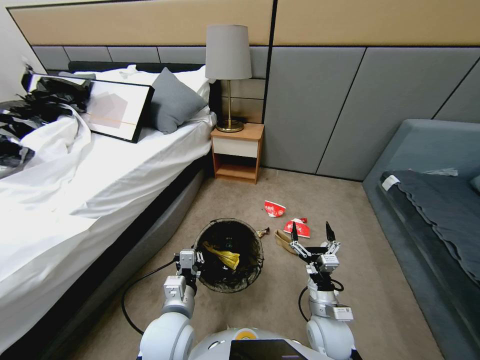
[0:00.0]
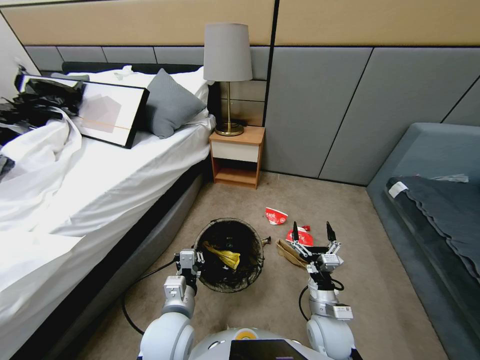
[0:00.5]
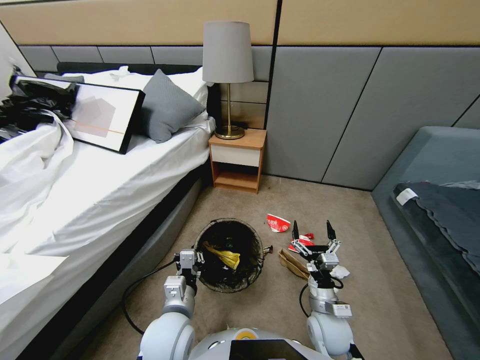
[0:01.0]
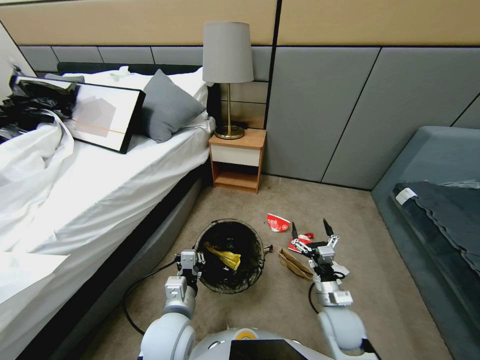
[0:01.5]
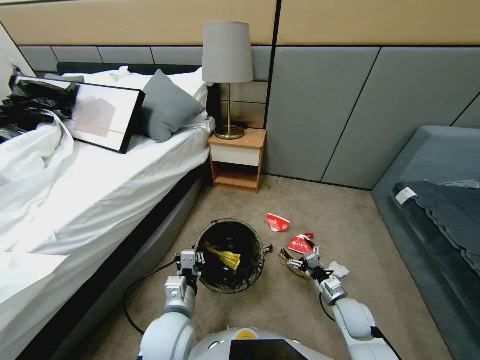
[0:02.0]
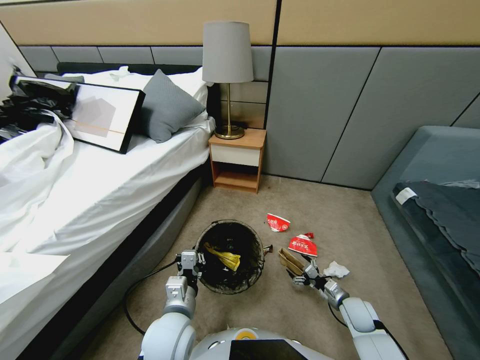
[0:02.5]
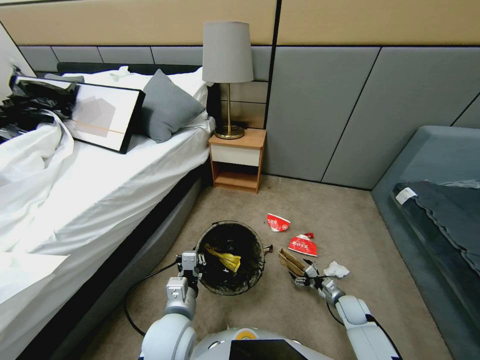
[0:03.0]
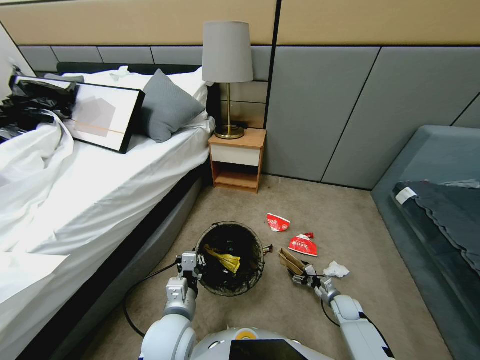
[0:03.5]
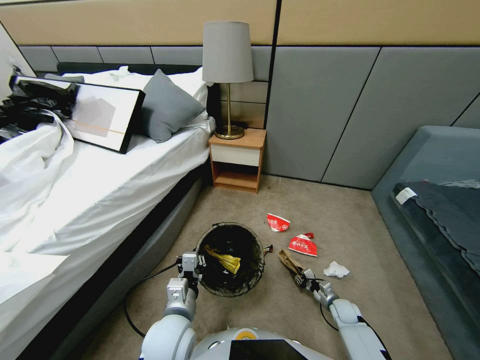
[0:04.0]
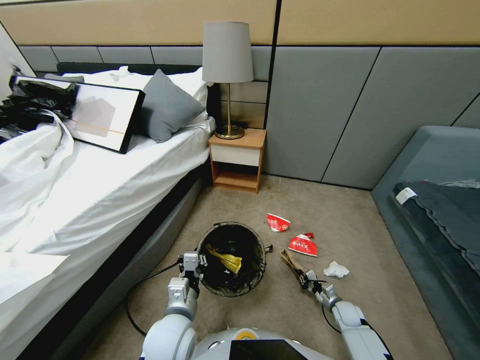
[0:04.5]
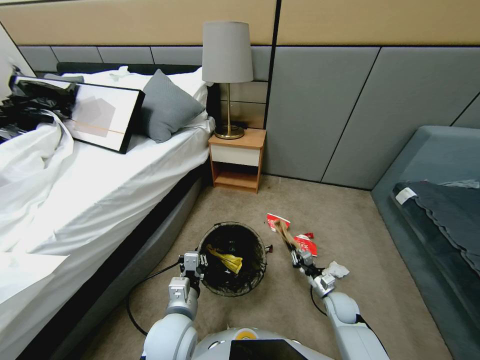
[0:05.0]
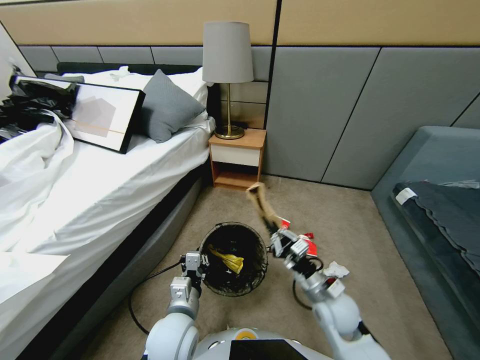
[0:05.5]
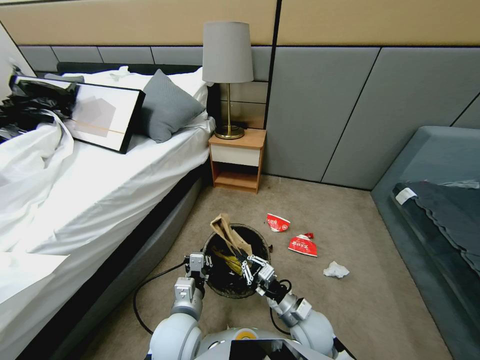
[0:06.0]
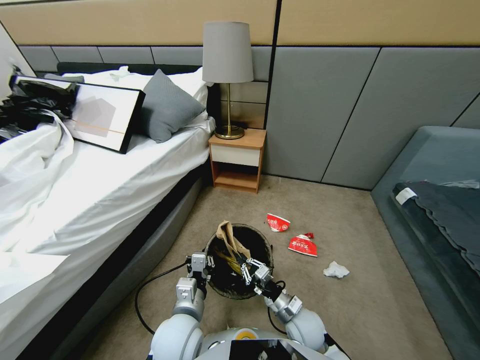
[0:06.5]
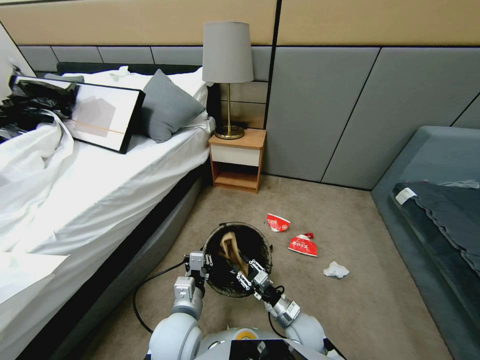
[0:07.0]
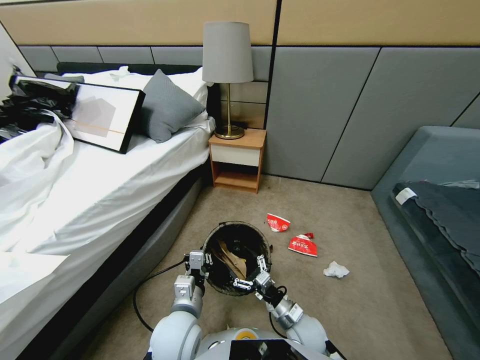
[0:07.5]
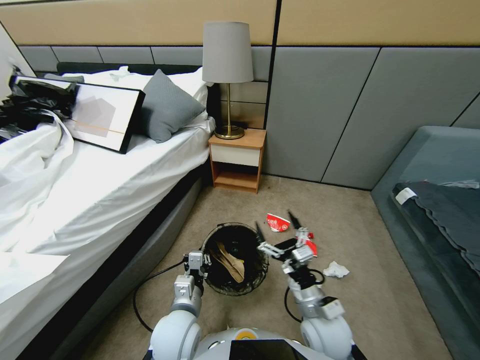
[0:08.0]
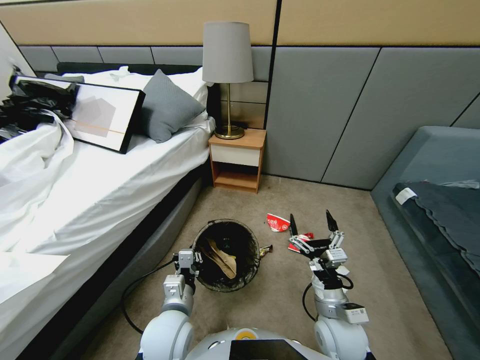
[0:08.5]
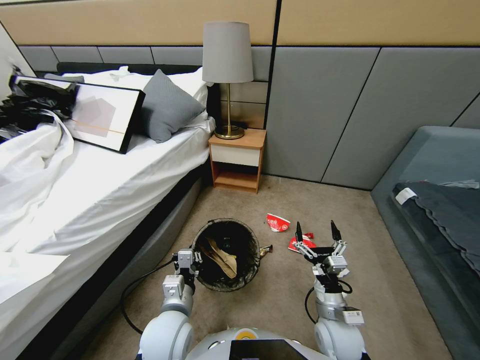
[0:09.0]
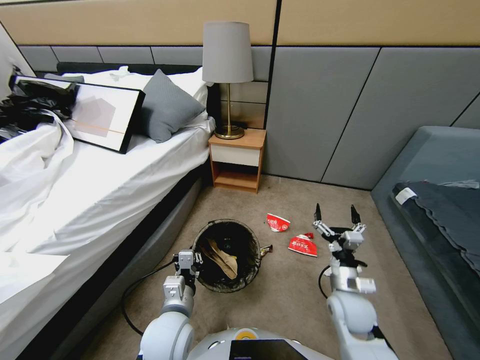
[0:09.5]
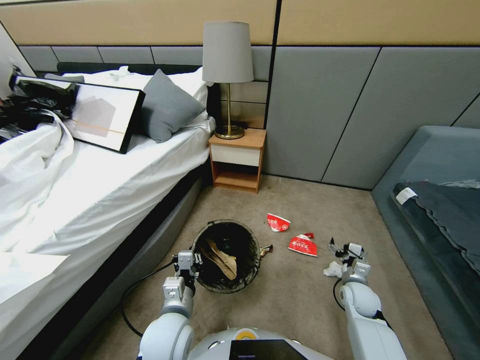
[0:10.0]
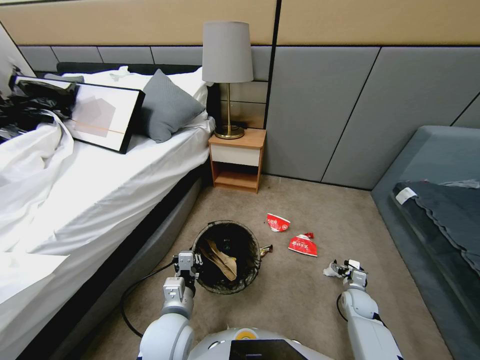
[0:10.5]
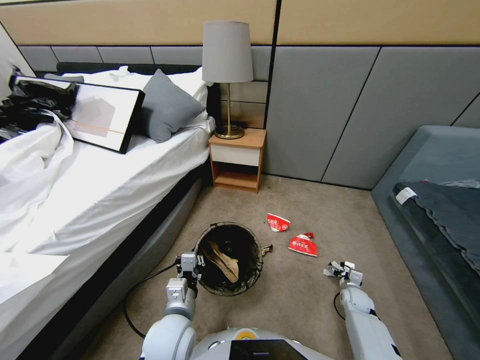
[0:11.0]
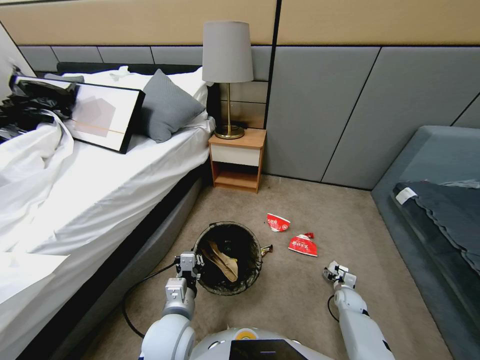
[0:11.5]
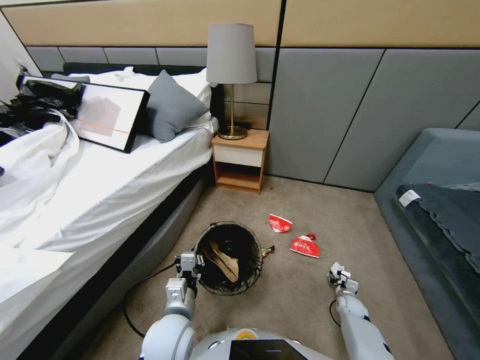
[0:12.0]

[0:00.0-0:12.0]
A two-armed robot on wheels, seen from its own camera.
Task of the whole recording: Pick up the trash bin, then pick up the garbage from the floor and place it into the trash bin.
0:00.0 to 0:02.0: The right gripper goes approximately 15 cm to the right and downward.
0:02.0 to 0:04.0: The right gripper goes approximately 15 cm downward and to the right, and closes.
0:04.0 to 0:06.0: The right gripper travels to the left and upward by about 30 cm.
0:06.0 to 0:08.0: The right gripper moves upward, approximately 10 cm, and opens up.
0:08.0 to 0:10.0: The right gripper moves to the right, downward and forward, approximately 25 cm.
0:10.0 to 0:12.0: The right gripper moves downward, about 15 cm, and closes.

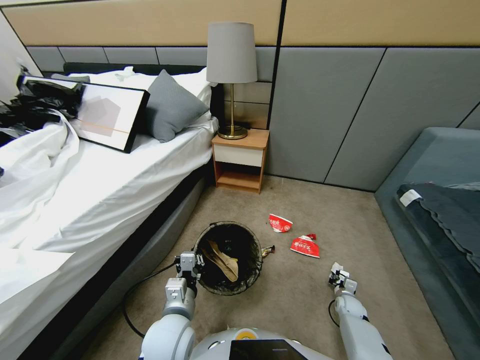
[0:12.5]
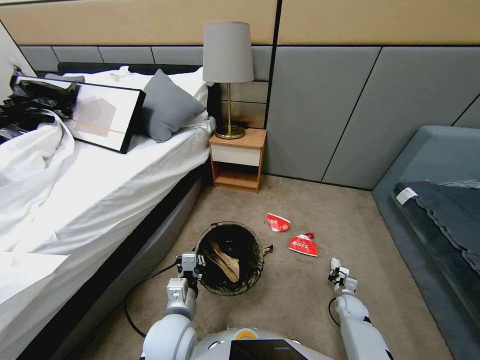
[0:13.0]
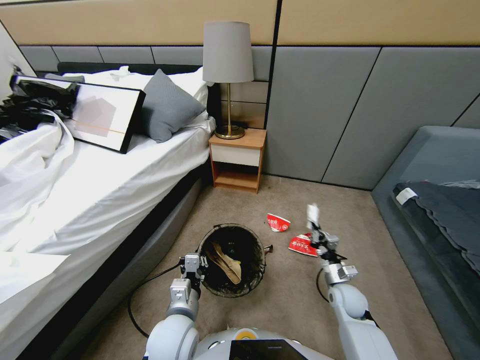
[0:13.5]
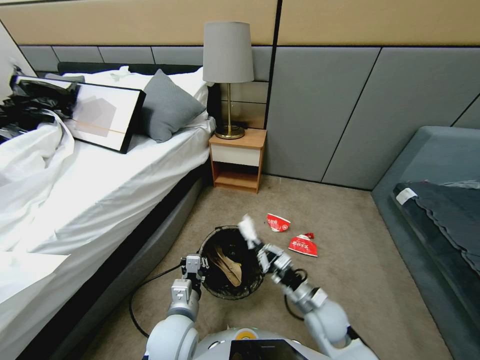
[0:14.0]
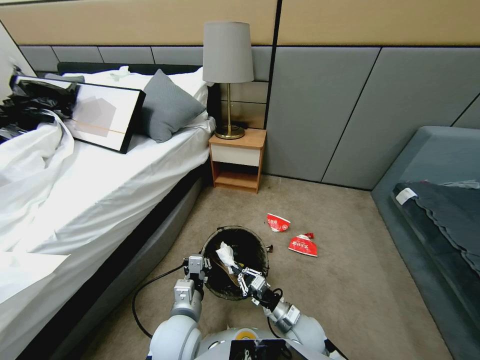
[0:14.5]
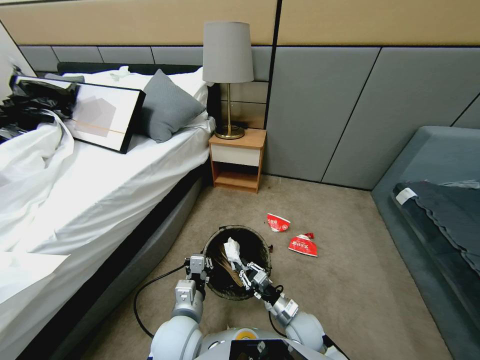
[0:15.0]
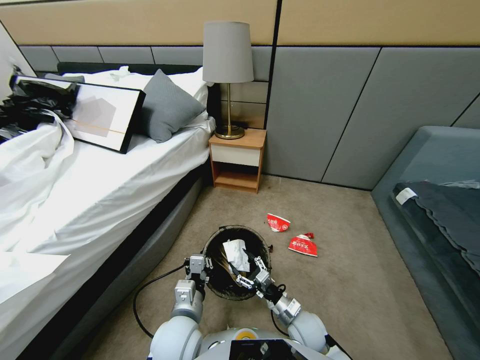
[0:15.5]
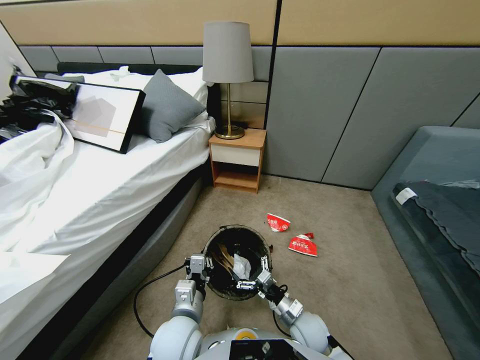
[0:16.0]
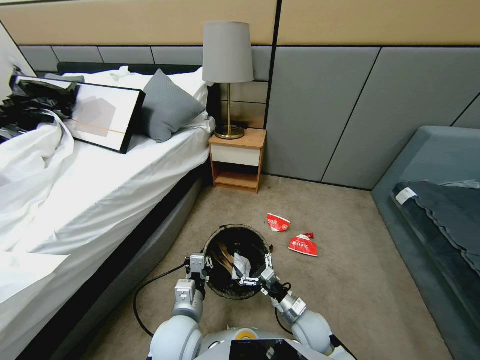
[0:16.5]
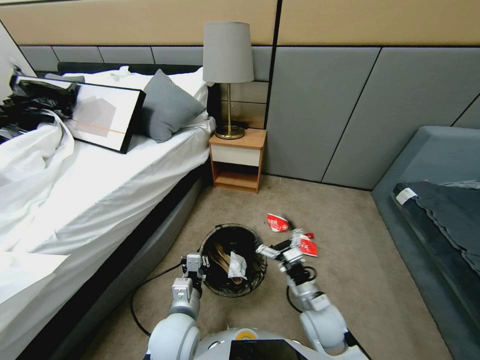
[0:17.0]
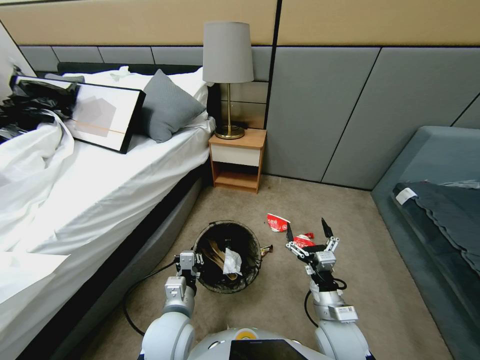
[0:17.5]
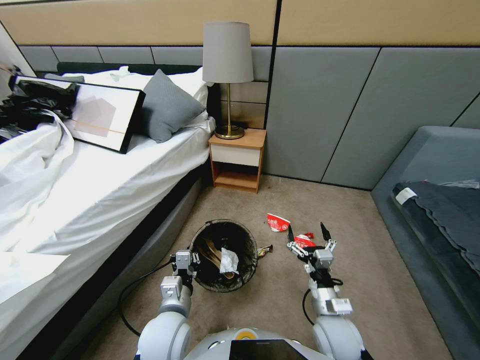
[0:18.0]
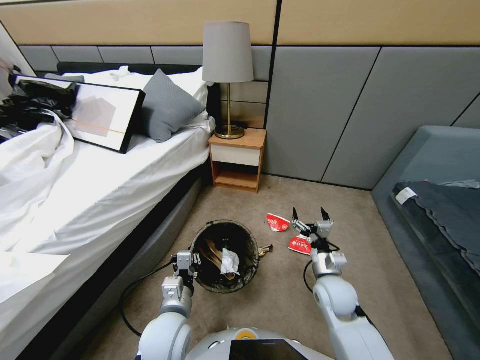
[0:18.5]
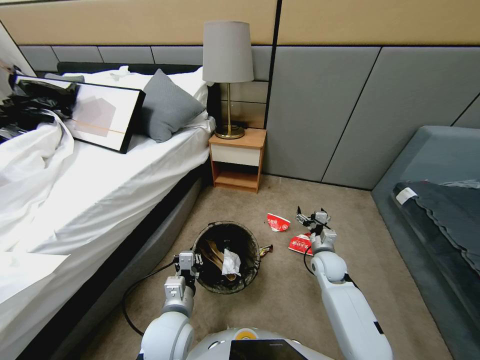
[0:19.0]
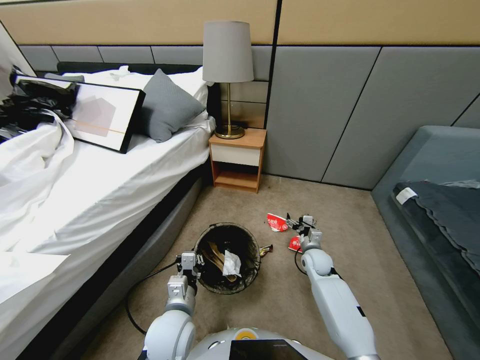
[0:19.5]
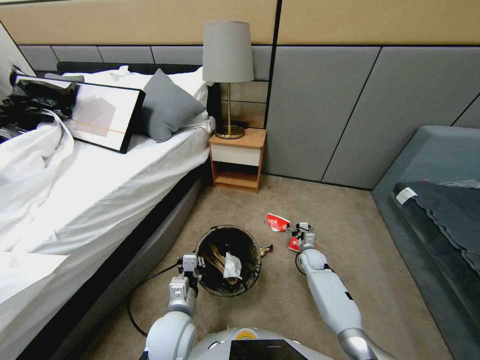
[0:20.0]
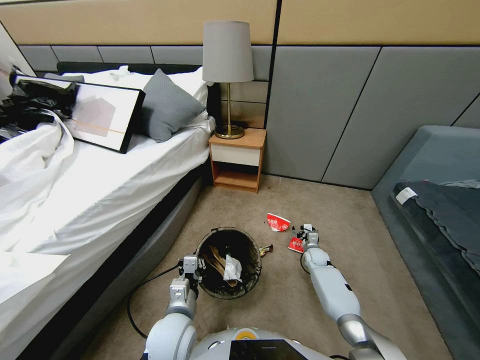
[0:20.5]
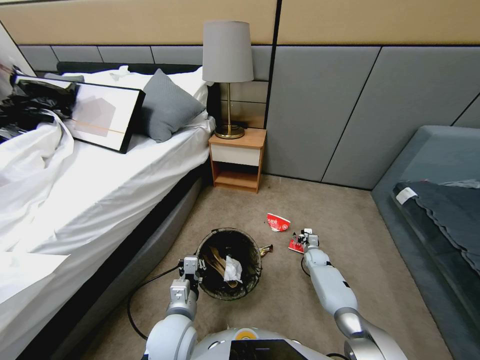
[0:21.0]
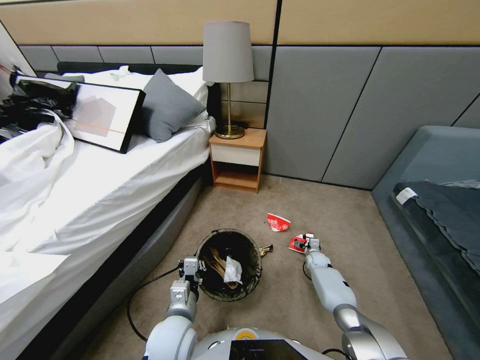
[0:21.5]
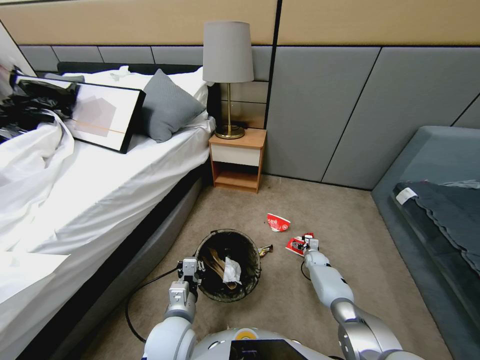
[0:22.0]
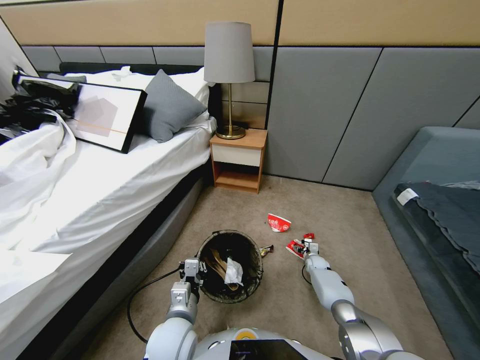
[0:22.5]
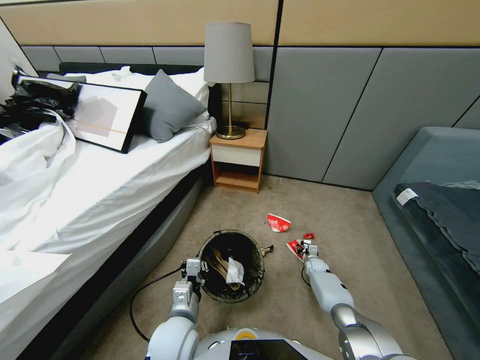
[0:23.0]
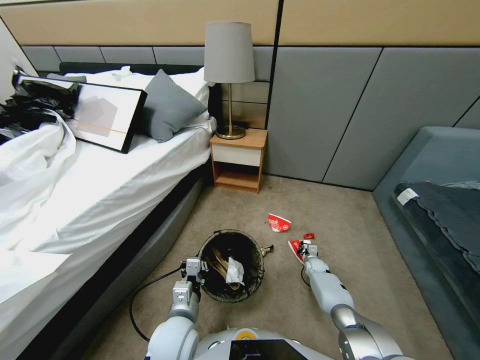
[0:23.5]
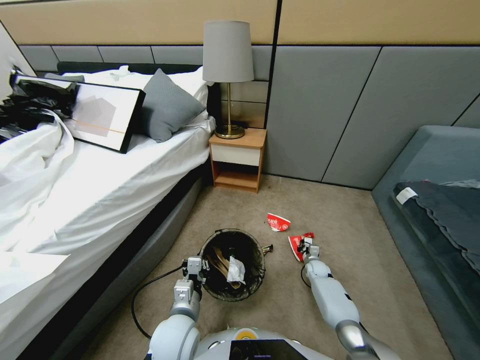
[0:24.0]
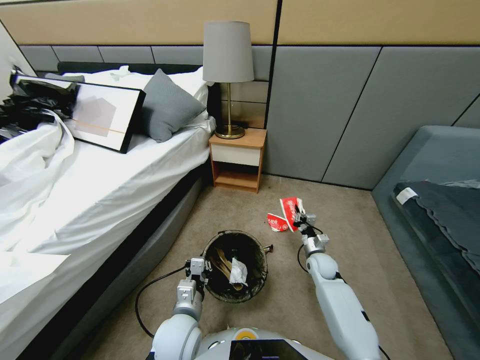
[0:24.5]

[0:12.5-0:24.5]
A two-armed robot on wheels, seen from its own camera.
Task of the whole recording: Pick up the trash bin, then pick up the garbage from the floor and place it into the trash bin.
0:12.5 to 0:14.5: The right gripper moves to the left and upward, roughly 30 cm.
0:14.5 to 0:16.5: The right gripper opens.
0:16.5 to 0:18.5: The right gripper travels forward, upward and to the right by approximately 15 cm.
0:18.5 to 0:20.5: The right gripper goes about 25 cm downward, forward and to the right.
0:20.5 to 0:22.5: The right gripper moves downward, roughly 5 cm.
0:22.5 to 0:24.5: The right gripper moves upward, backward and to the left, some 20 cm, and closes up.

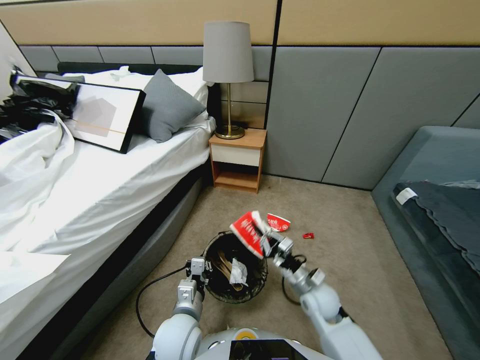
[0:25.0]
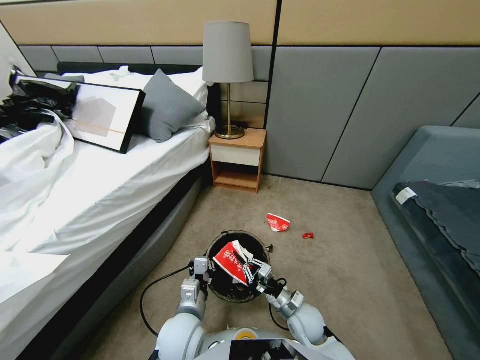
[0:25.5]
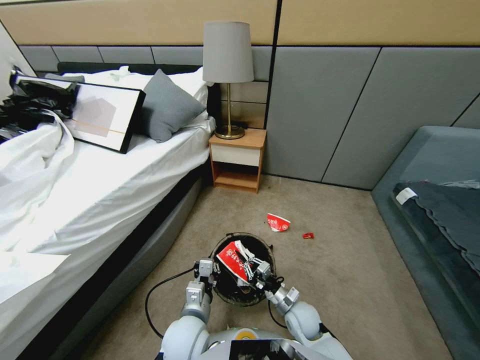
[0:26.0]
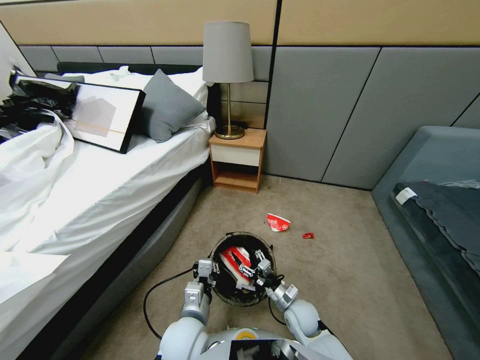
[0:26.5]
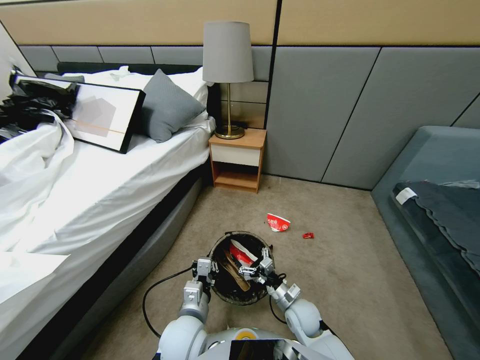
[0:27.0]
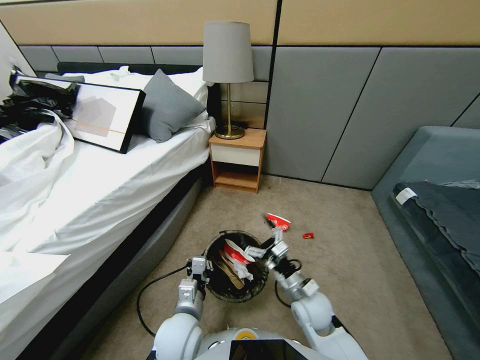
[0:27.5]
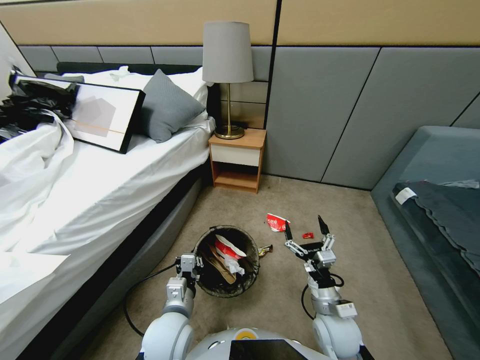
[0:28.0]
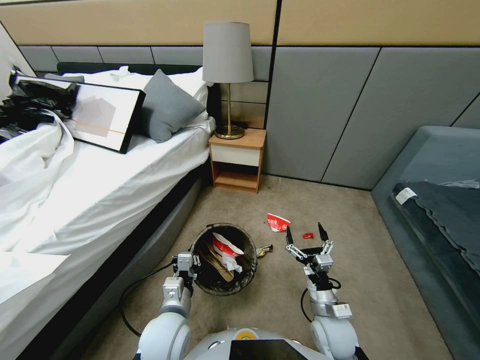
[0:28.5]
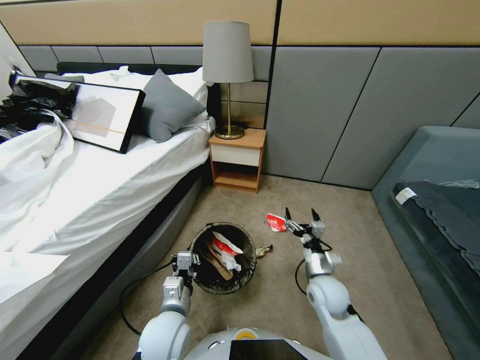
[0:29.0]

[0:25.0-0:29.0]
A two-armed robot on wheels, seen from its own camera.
Task of the whole recording: Pick up the trash bin, then pick up the garbage from the floor and place it into the trash bin.
0:25.0 to 0:27.0: The right gripper ends up approximately 5 cm from where it was, and opens up.
0:27.0 to 0:29.0: The right gripper goes approximately 10 cm upward and forward.
